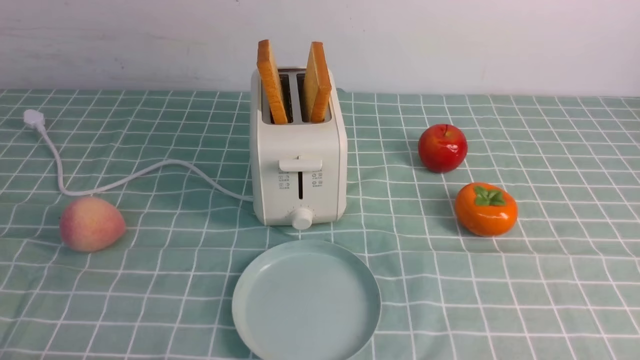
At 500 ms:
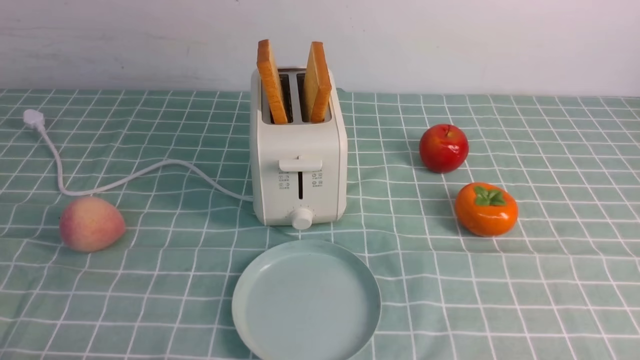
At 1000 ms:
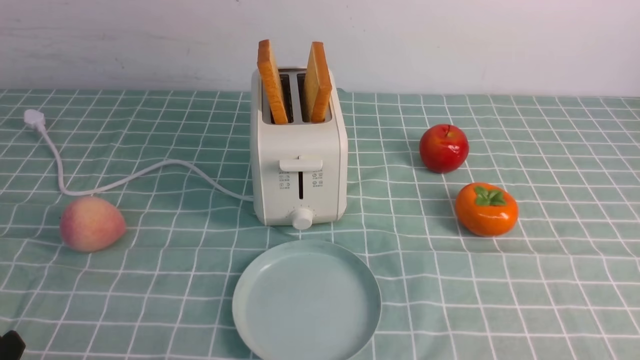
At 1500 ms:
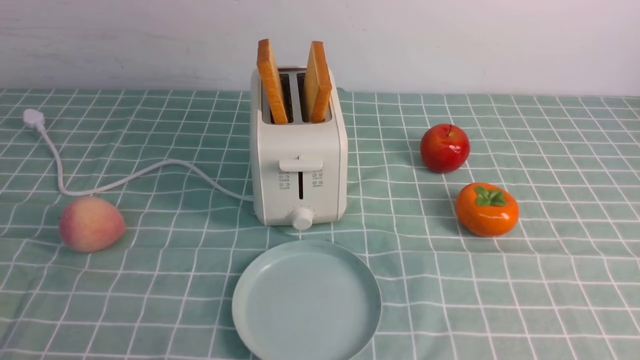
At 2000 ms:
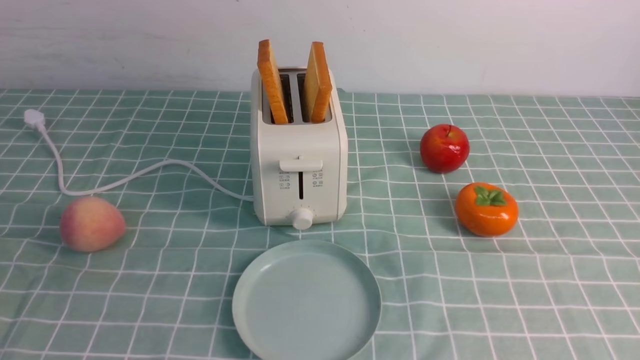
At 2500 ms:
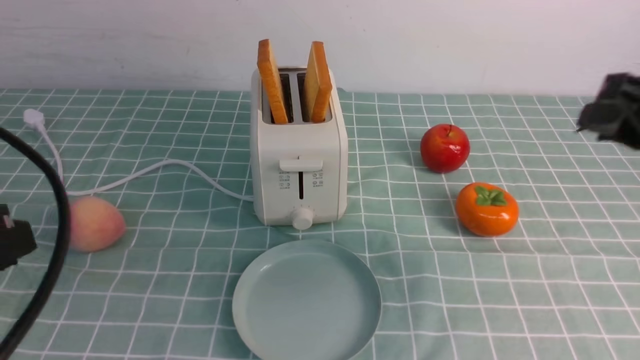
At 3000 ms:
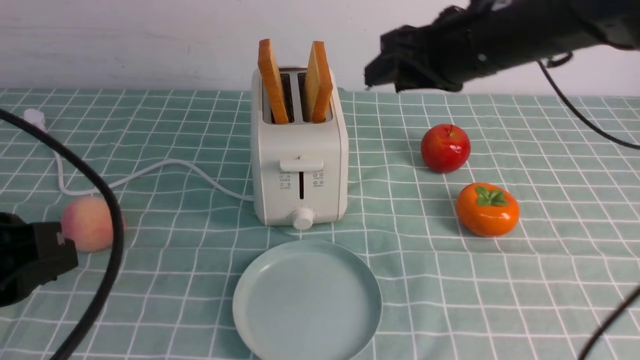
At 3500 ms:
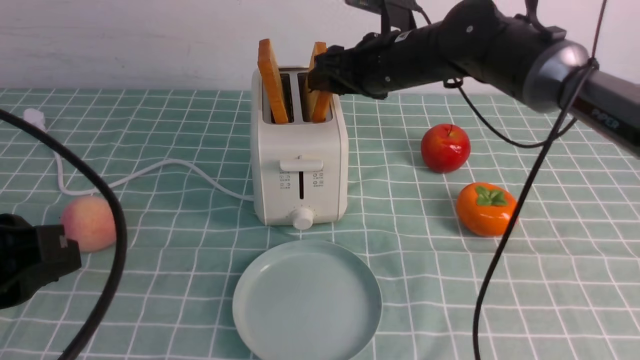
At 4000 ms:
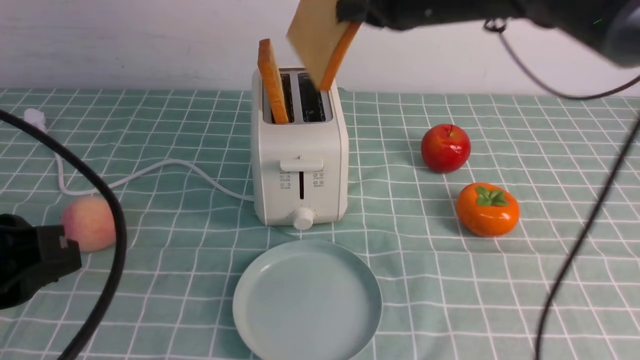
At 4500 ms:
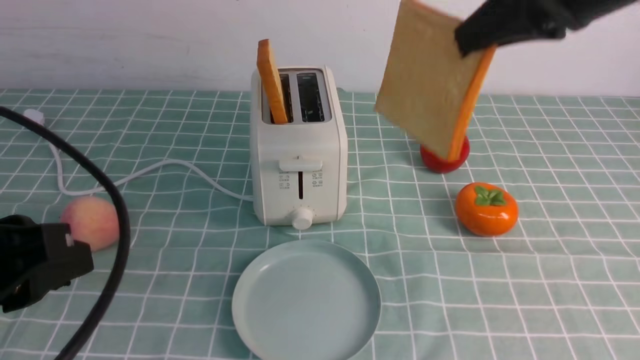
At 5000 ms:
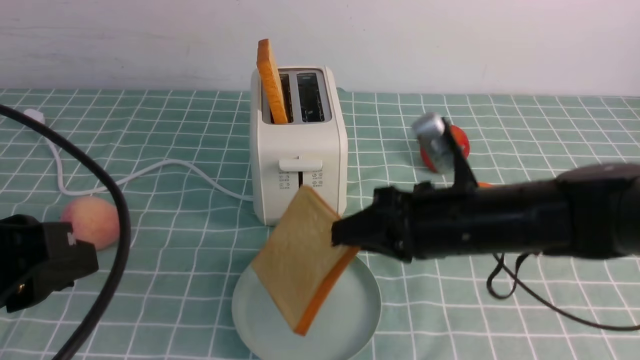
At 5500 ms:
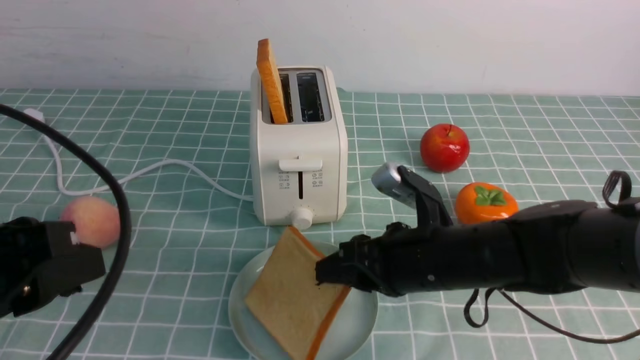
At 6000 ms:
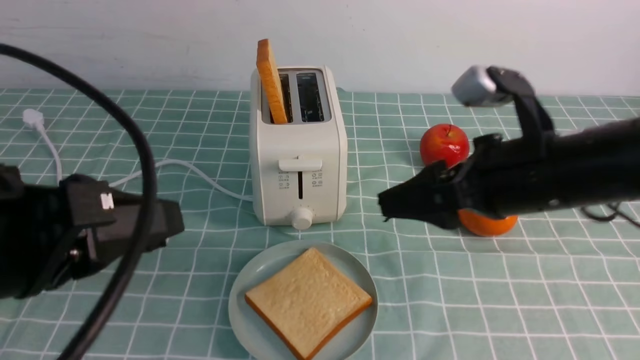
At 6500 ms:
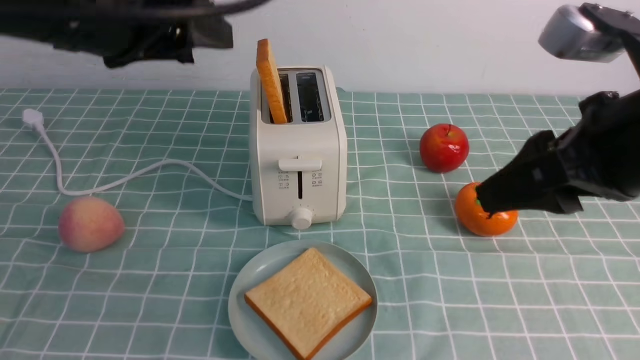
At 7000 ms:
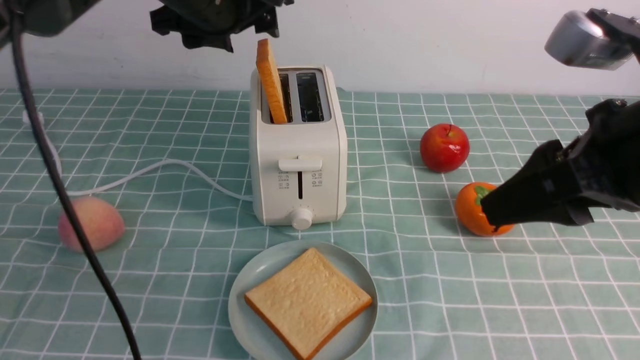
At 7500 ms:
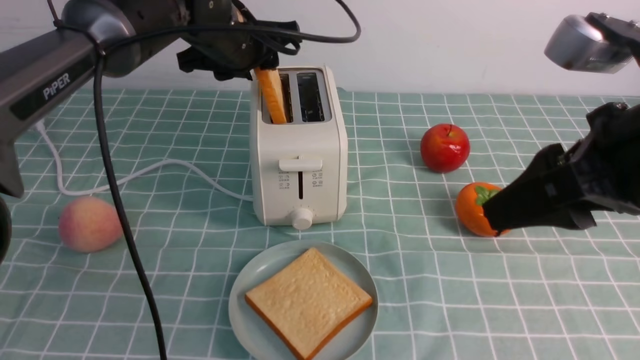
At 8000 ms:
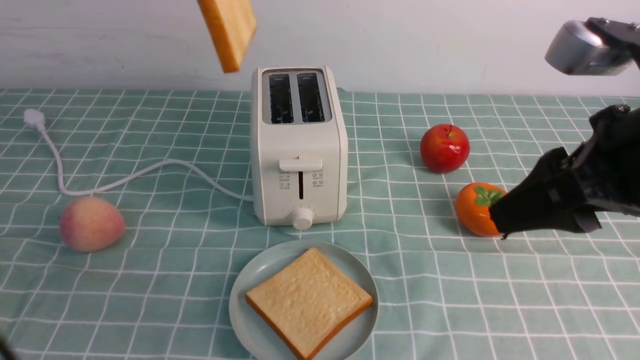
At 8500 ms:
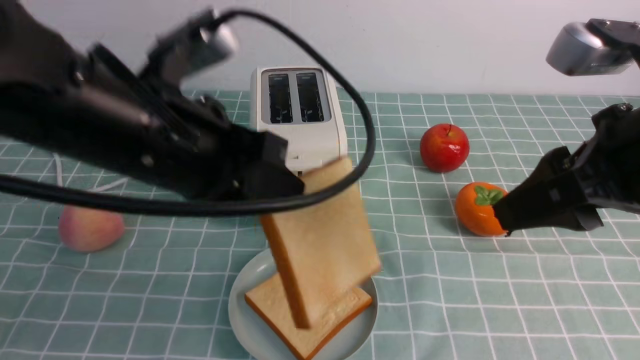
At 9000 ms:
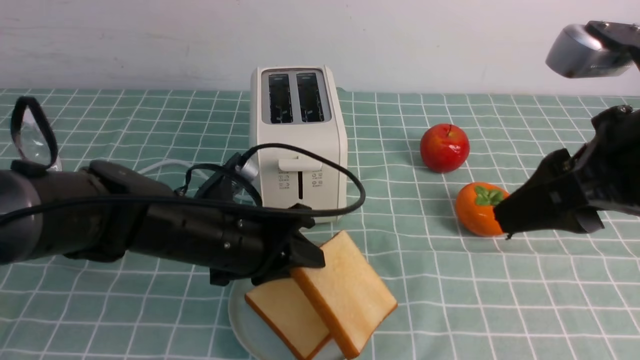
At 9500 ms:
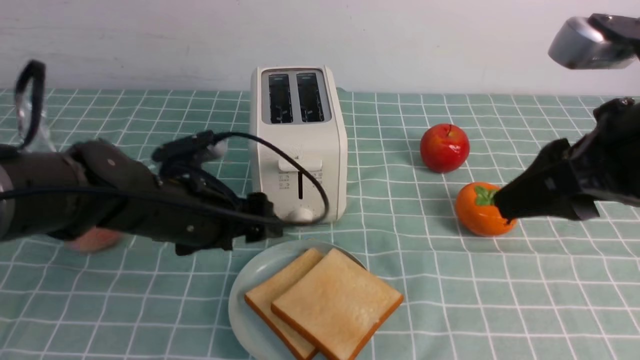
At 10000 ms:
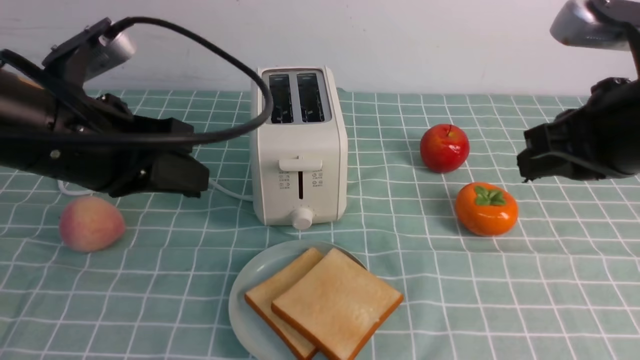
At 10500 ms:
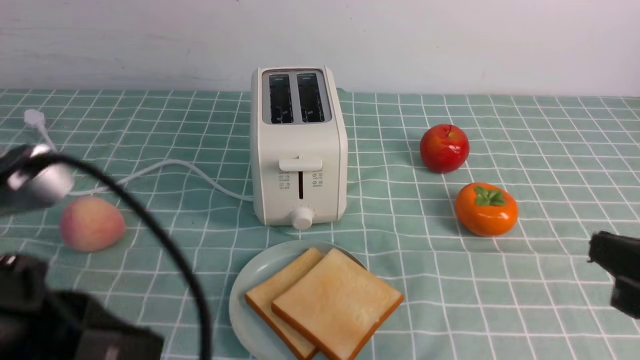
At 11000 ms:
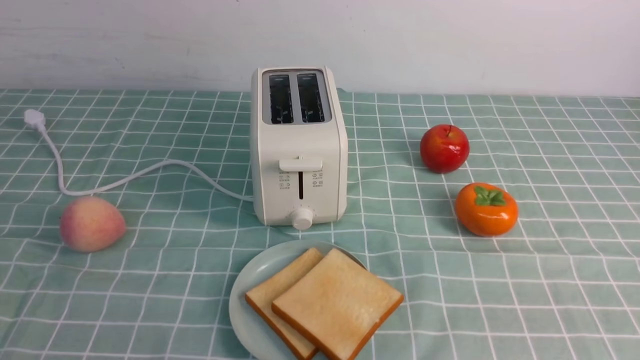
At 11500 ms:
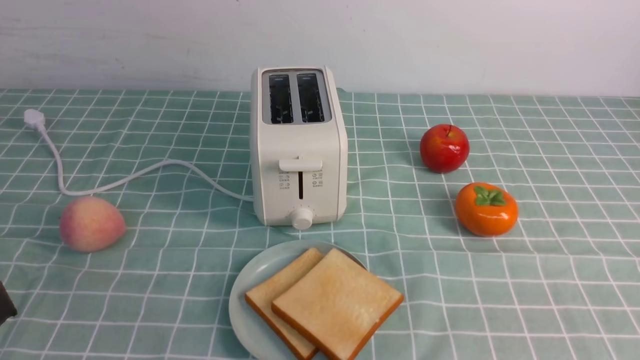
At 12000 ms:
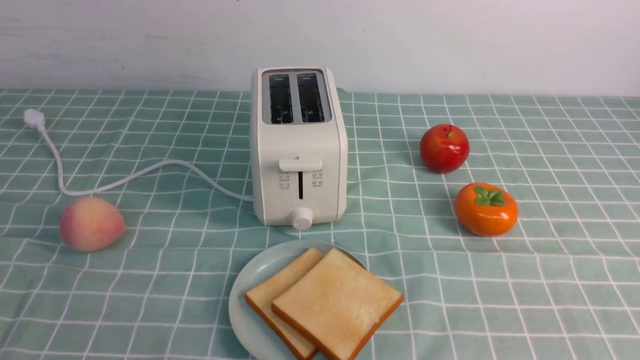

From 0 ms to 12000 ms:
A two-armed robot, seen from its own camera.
Task of the whole recording: take toasted bread from bread machine on blue coffee table place on plate.
Step, from 0 ms to 3500 ms: use the right arm to take out a slice of bread.
Step, from 4000 ms to 5500 ms: use the right arm to put a slice of bread into the plate.
Step, from 6000 ms to 7500 ms: use the left arm to take out a slice of bread.
Step, from 8000 ms to 9500 ms: use the left arm to put a slice of bread into the empty plate.
From 2000 ms to 4000 ms: The right gripper is displaced forward and to the left by roughly 35 cm. The left gripper moves forward, approximately 5 cm.
From 4000 ms to 6000 ms: The right gripper travels backward and downward by about 20 cm, and opens its fingers.
From 6000 ms to 8000 ms: The left gripper goes about 20 cm forward and upward, and opens and closes again; the right gripper moves upward and backward, some 10 cm.
From 8000 ms to 10000 ms: The right gripper closes up. The left gripper is displaced downward and backward by about 15 cm, and opens and closes again.
From 10000 ms to 12000 ms: The right gripper goes some 20 cm backward, downward and to the right, while the left gripper travels backward by approximately 20 cm.
